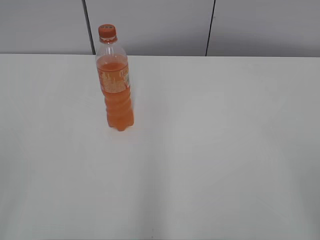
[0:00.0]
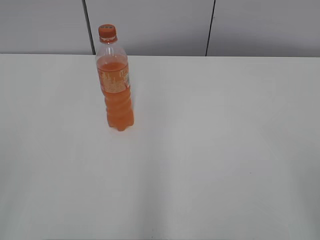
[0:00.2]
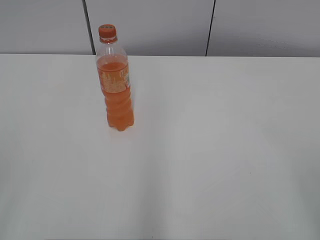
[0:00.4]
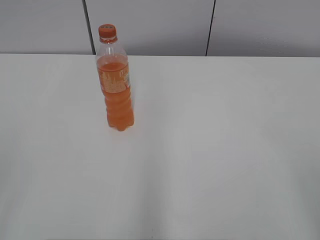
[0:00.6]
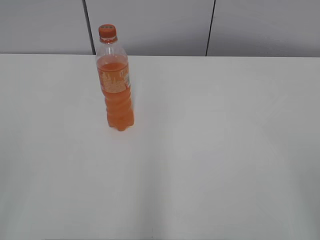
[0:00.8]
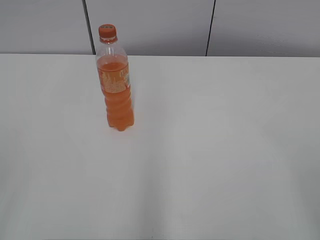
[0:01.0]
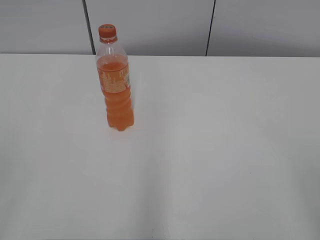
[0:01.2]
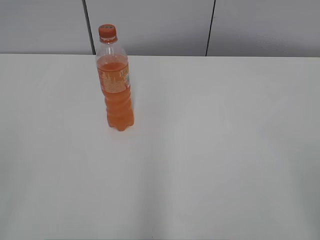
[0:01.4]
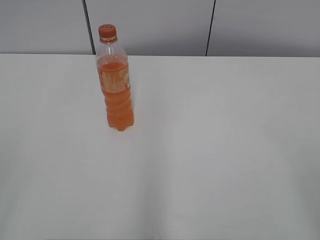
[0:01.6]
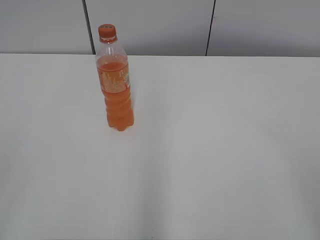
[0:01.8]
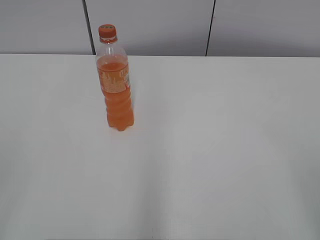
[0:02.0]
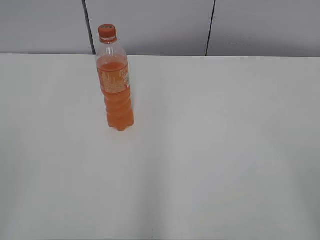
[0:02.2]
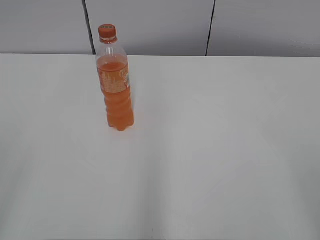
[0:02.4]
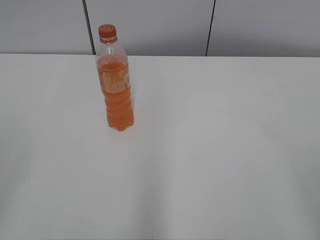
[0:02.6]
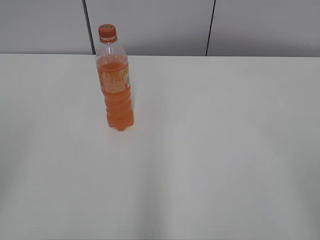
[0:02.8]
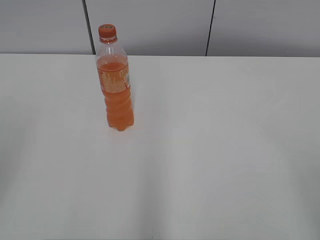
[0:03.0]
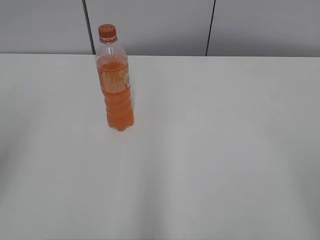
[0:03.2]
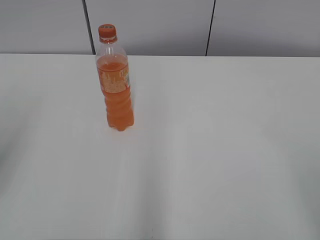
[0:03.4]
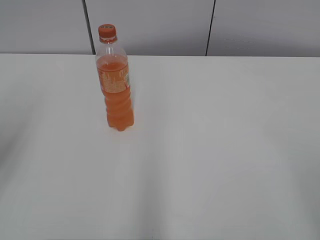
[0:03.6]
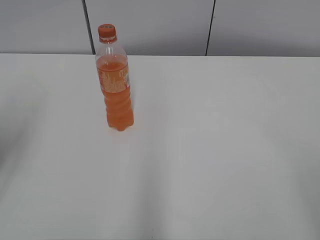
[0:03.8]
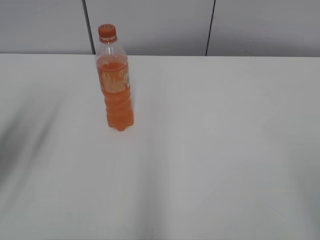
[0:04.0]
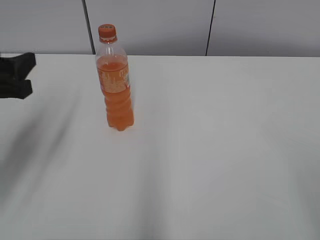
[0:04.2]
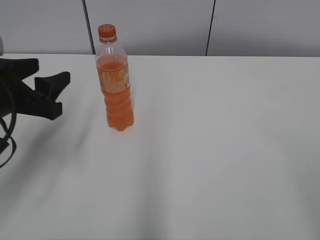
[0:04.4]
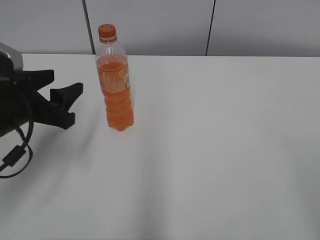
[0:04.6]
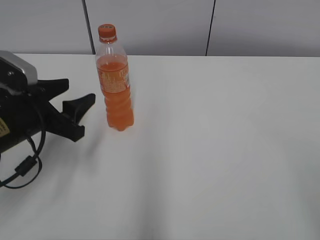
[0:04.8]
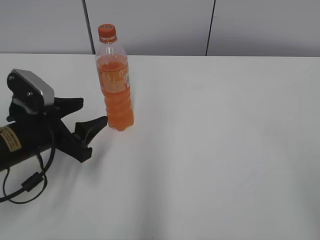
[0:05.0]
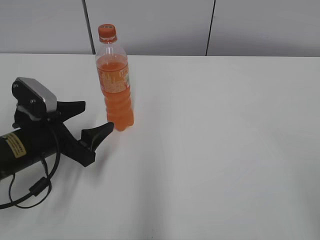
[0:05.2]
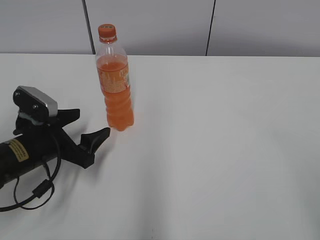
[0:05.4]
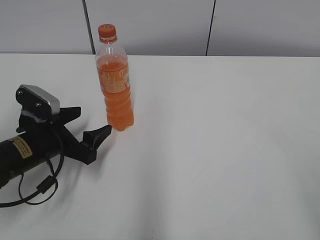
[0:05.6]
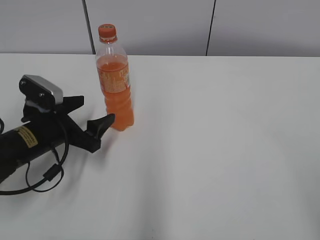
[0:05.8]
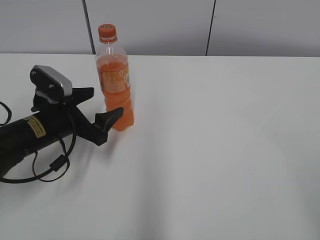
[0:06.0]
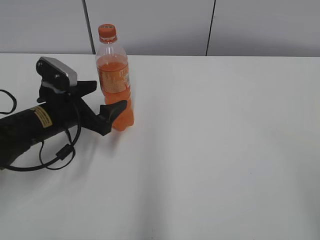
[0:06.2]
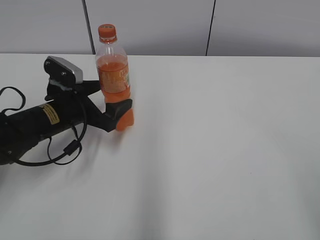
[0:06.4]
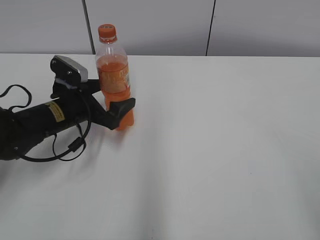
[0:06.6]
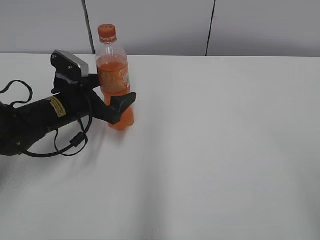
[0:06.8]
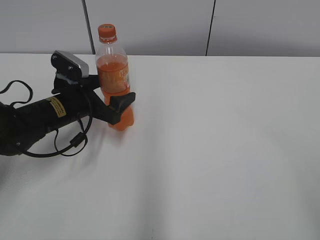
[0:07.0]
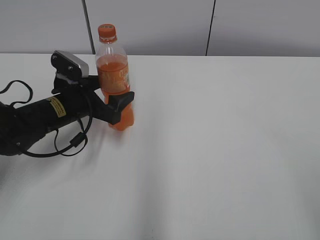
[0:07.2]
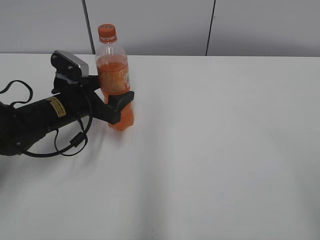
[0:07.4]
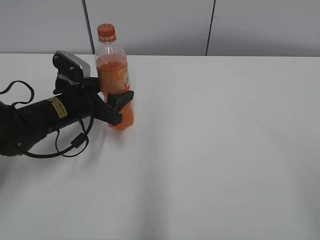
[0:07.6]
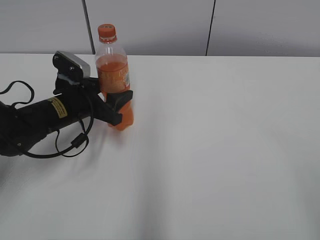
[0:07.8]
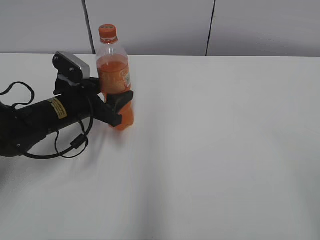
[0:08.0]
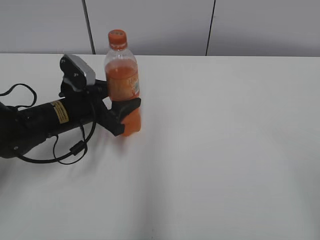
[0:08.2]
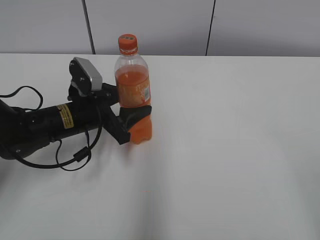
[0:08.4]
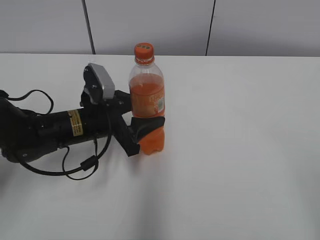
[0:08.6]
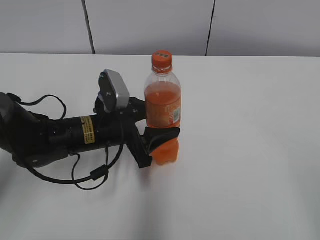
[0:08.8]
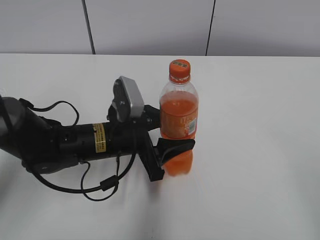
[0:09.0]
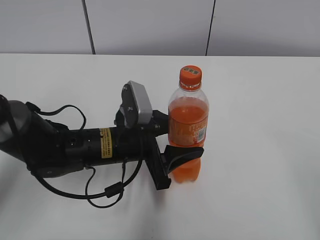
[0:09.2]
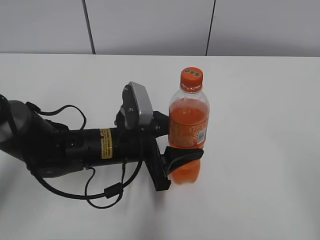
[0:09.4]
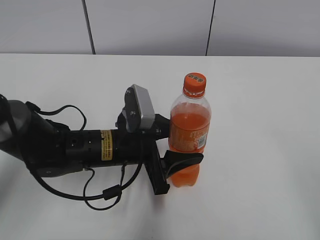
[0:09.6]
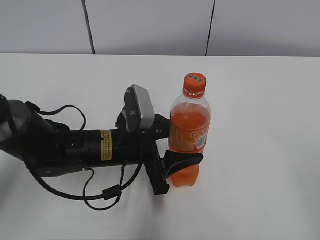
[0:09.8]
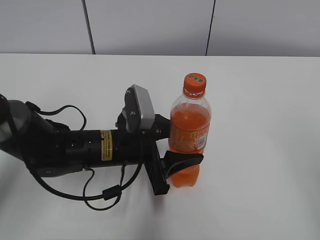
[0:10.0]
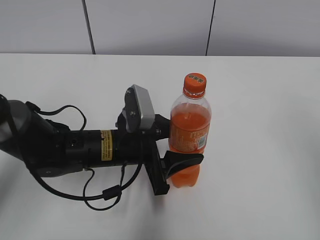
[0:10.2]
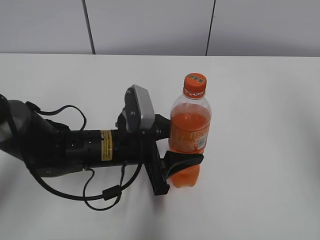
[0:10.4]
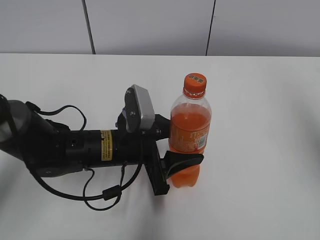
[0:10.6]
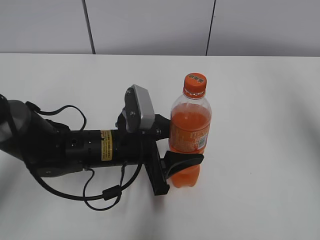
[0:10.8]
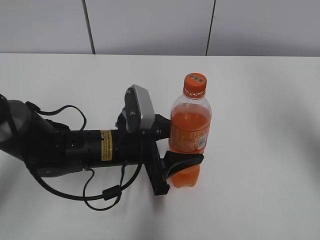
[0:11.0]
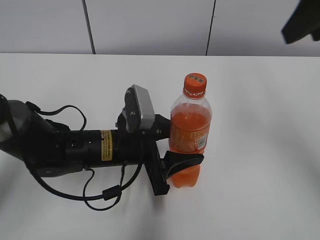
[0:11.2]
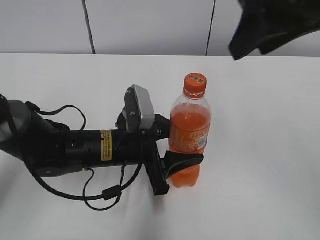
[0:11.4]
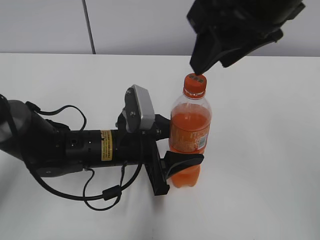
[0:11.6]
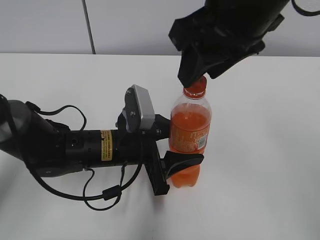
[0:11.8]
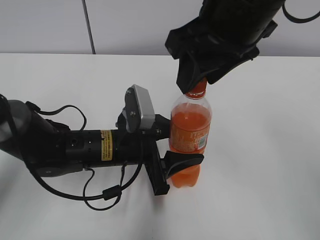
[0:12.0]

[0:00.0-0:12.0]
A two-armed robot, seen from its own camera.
Step, 0:00.0 to 0:07.6: Grab the Mirinda with the left hand.
Step, 0:07.8 to 0:09.8: Move the Mirinda from left to right.
0:03.0 to 0:04.4: The left gripper is displaced forward, downward and to the right by roughly 20 cm.
0:04.4 to 0:06.0: The left gripper heads downward and forward, covering roughly 10 cm, and opens.
0:06.0 to 0:07.6: The left gripper travels forward by roughly 5 cm.
0:07.6 to 0:09.0: The left gripper travels to the right and backward by roughly 10 cm.
0:09.0 to 0:10.4: The right gripper moves forward and upward, approximately 15 cm, and closes.
0:10.4 to 0:12.0: The right gripper moves to the left and forward, some 25 cm.

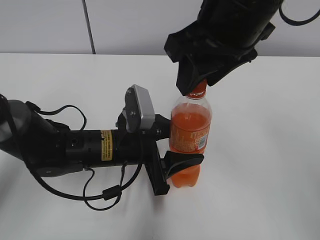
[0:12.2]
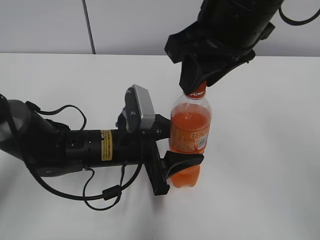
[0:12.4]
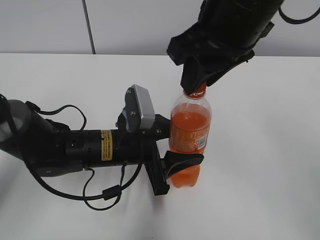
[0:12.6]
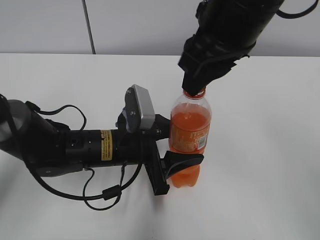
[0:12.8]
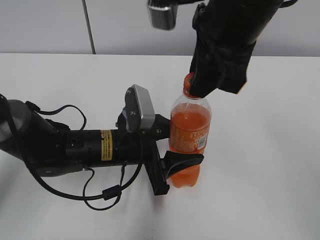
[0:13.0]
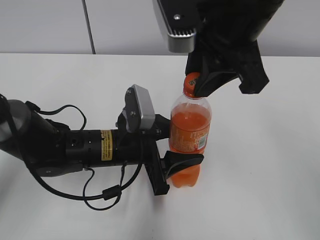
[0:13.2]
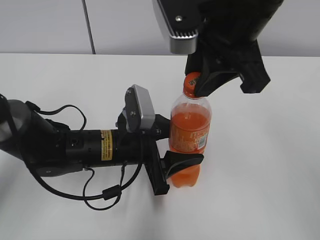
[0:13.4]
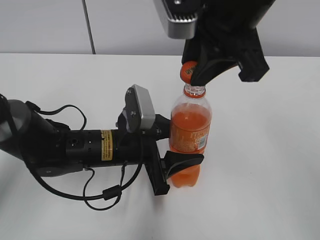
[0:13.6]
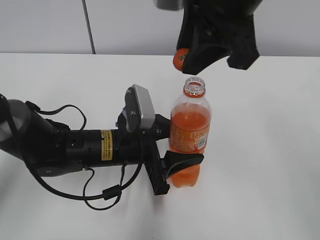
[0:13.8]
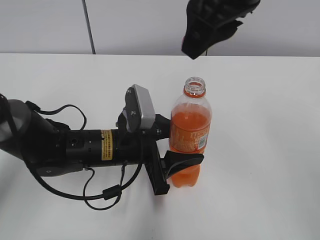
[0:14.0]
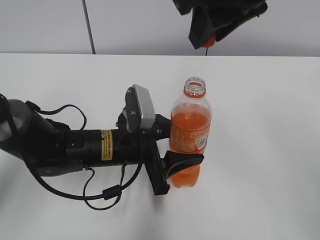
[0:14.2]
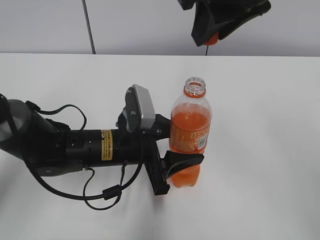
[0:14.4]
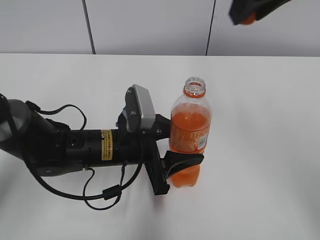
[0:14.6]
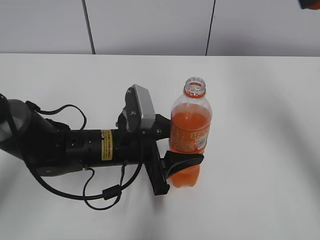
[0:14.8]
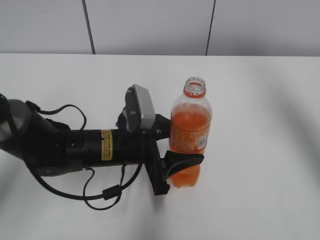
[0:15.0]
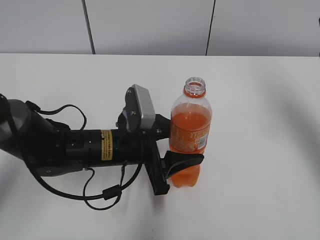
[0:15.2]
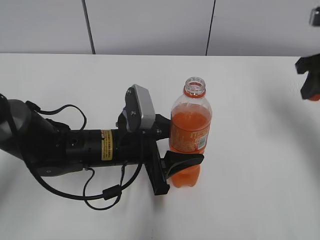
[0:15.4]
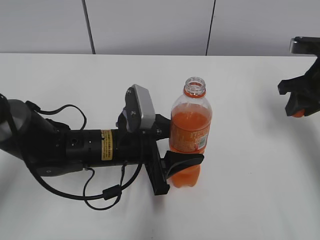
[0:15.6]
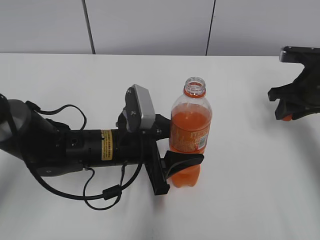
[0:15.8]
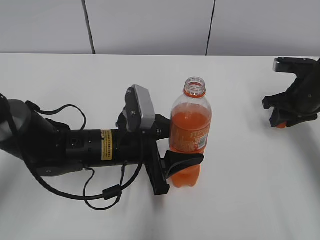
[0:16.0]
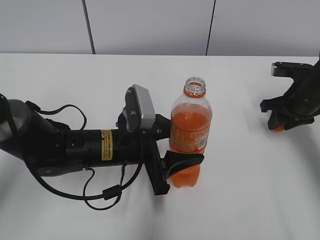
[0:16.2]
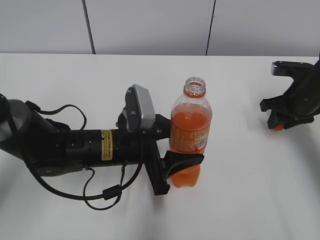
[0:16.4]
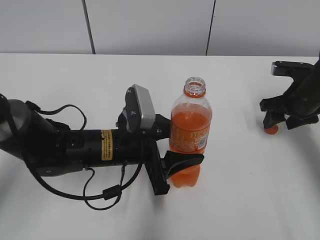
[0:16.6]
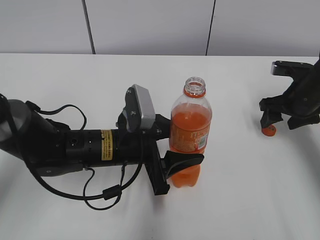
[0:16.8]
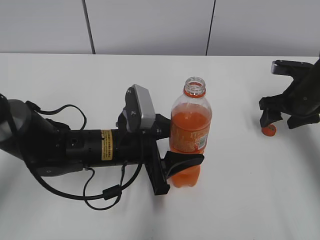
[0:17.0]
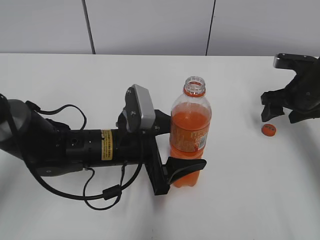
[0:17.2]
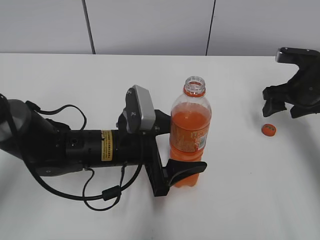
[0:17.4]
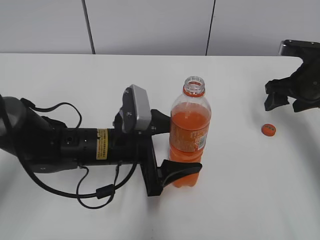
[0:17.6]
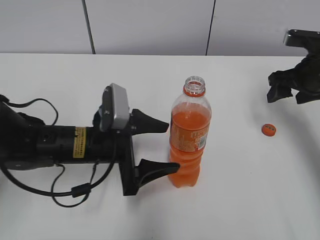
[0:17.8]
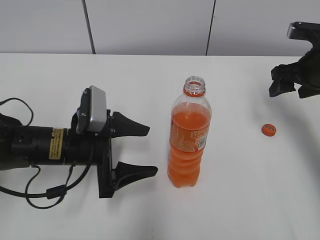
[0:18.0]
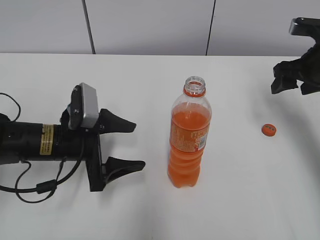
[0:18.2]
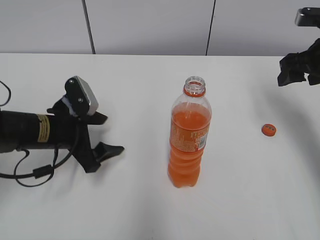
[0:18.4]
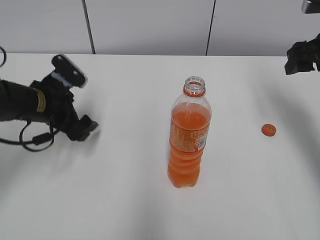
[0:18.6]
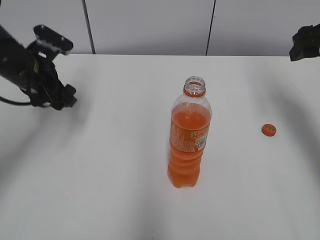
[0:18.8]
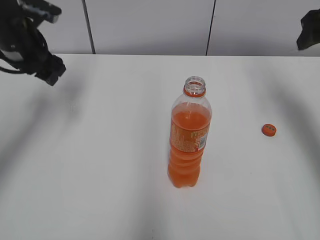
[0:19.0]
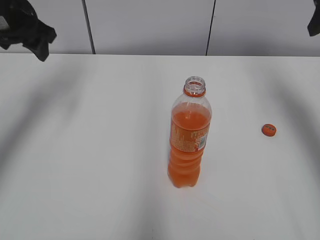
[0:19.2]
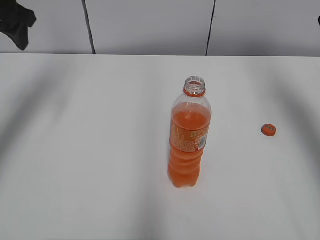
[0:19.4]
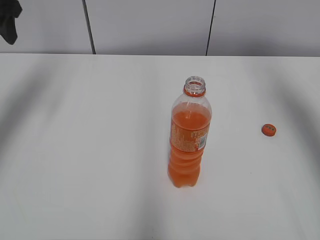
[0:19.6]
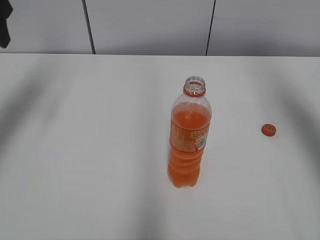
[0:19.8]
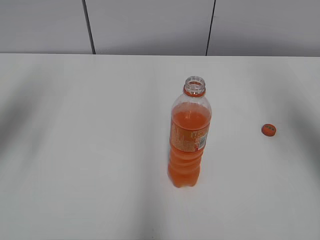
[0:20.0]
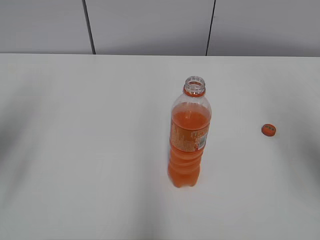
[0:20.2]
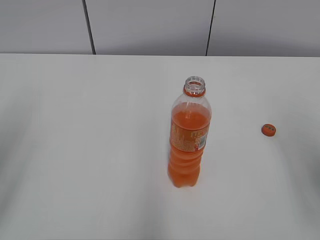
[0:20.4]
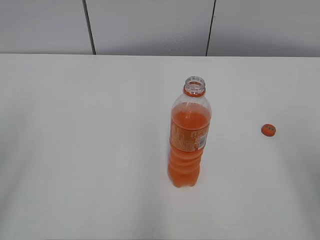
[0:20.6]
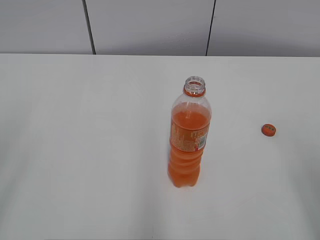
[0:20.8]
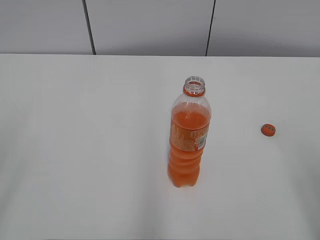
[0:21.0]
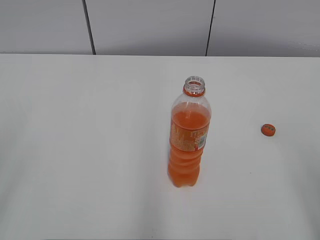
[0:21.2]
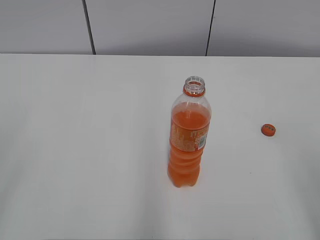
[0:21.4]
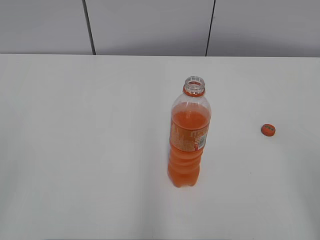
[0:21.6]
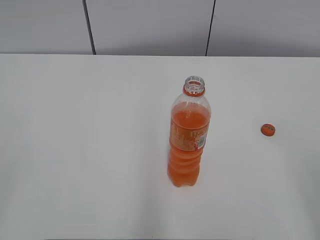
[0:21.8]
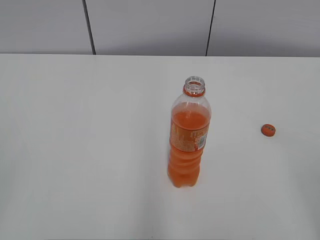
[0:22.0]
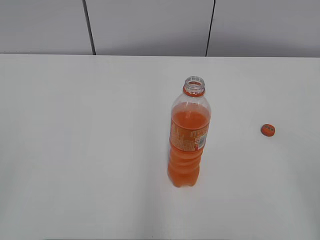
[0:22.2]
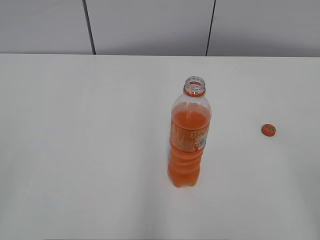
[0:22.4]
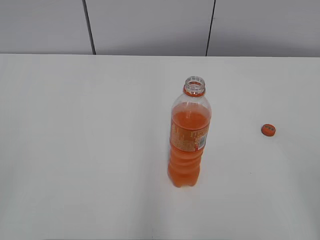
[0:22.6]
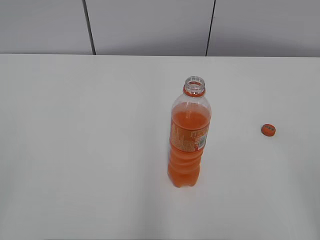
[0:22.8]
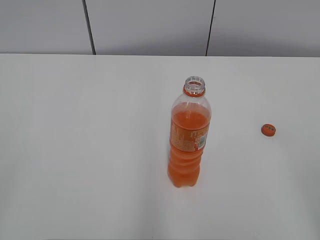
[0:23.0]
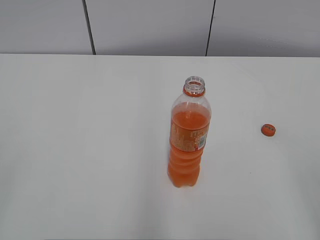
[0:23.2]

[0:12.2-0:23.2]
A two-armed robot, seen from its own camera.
Step, 0:13.6 to 0:16.6: Place the bottle cap on the right.
0:12.2 to 0:13.8: The right gripper closes its fingers.
0:13.8 to 0:15.4: The right gripper is displaced to the right and downward by about 25 cm.
0:15.4 to 0:17.0: The right gripper is displaced downward by about 15 cm, and opens up.
0:17.0 to 0:18.4: The right gripper travels upward by some 10 cm. Meanwhile the left gripper travels to the left by approximately 10 cm, and opens up.
0:18.4 to 0:20.0: The left gripper moves upward and to the left, roughly 25 cm. The right gripper shifts about 15 cm upward and backward.
0:20.0 to 0:21.6: The right gripper shifts some 25 cm backward and downward. The left gripper heads backward, covering about 30 cm.
